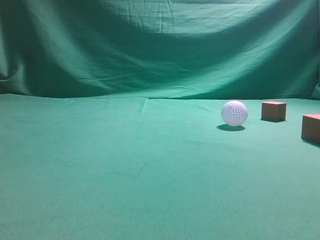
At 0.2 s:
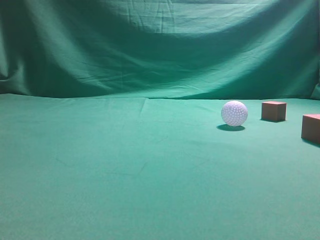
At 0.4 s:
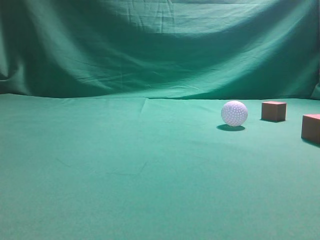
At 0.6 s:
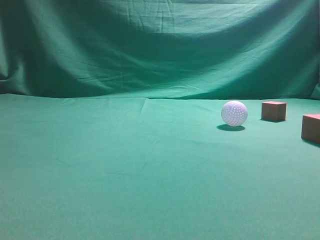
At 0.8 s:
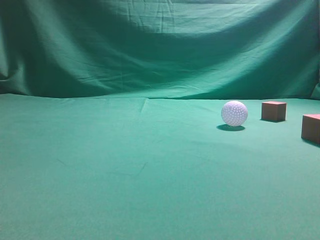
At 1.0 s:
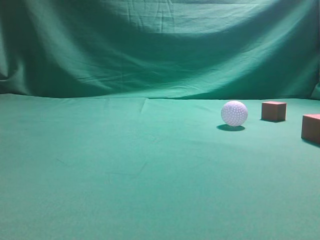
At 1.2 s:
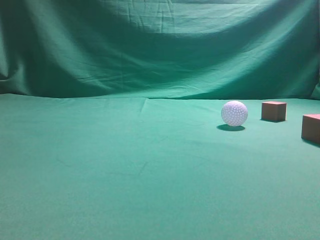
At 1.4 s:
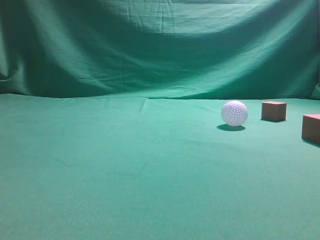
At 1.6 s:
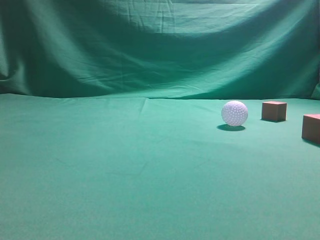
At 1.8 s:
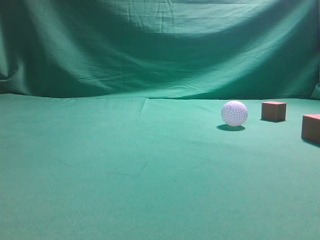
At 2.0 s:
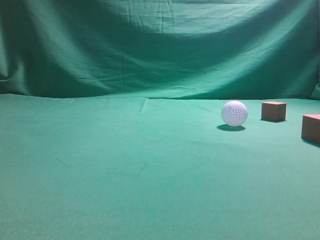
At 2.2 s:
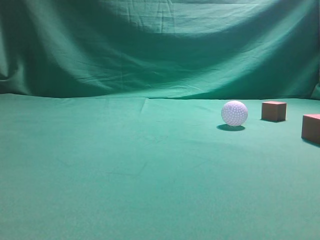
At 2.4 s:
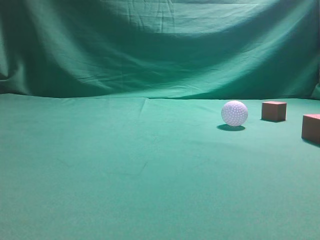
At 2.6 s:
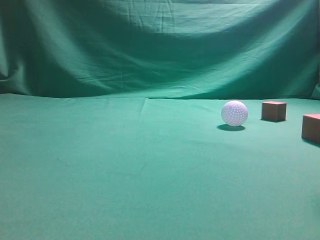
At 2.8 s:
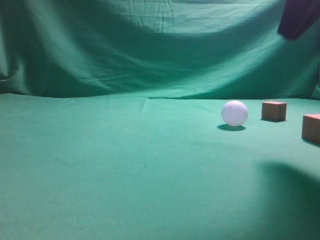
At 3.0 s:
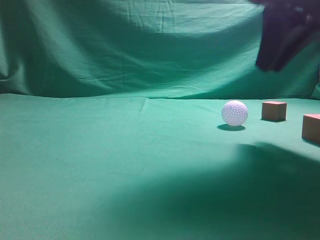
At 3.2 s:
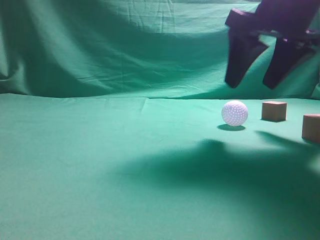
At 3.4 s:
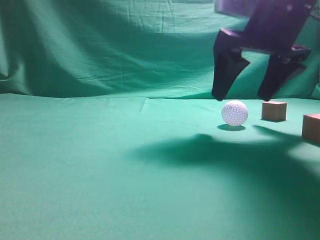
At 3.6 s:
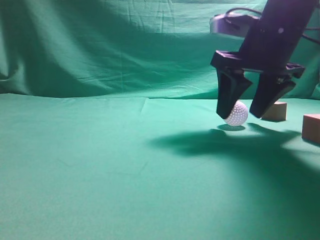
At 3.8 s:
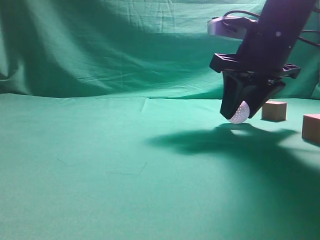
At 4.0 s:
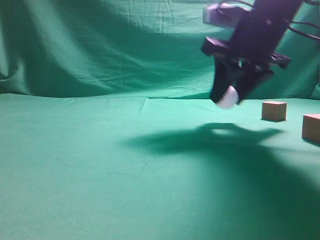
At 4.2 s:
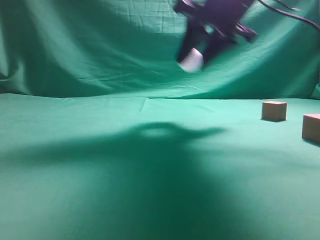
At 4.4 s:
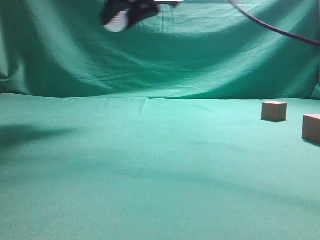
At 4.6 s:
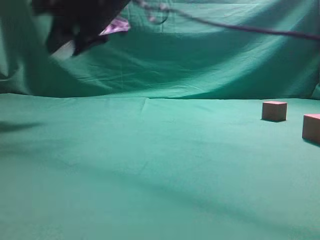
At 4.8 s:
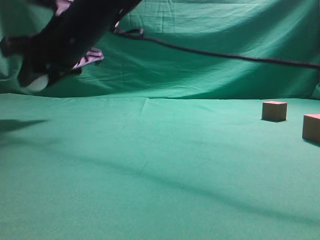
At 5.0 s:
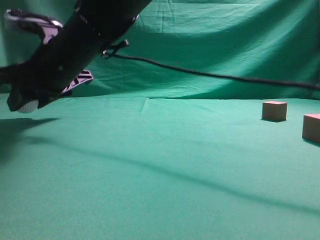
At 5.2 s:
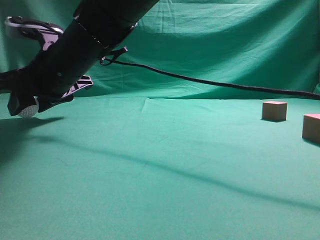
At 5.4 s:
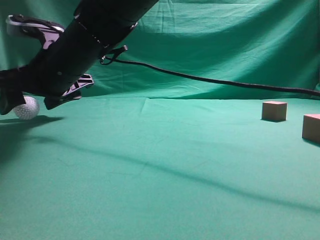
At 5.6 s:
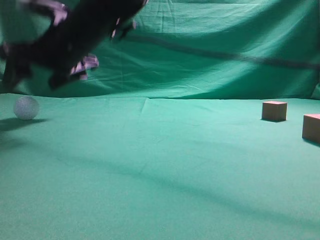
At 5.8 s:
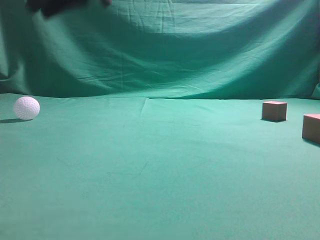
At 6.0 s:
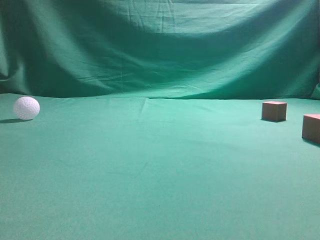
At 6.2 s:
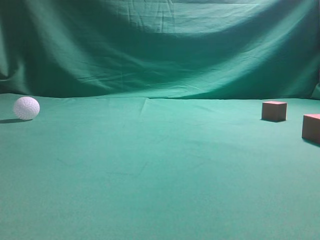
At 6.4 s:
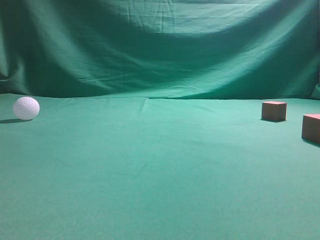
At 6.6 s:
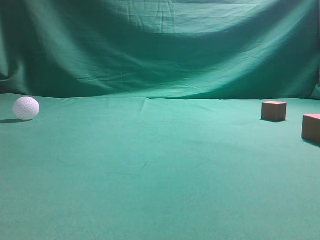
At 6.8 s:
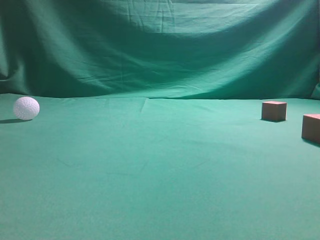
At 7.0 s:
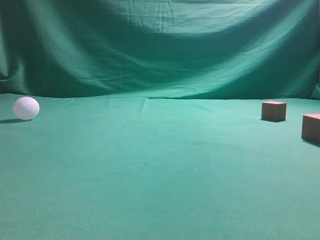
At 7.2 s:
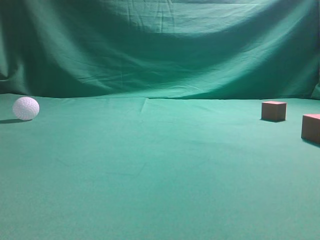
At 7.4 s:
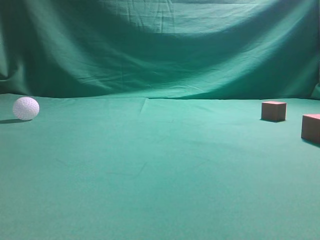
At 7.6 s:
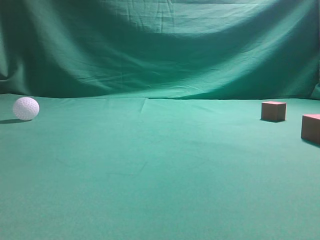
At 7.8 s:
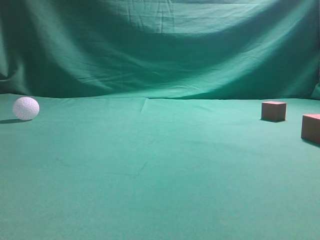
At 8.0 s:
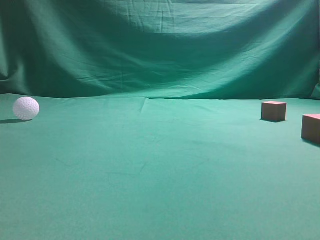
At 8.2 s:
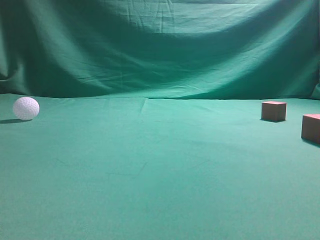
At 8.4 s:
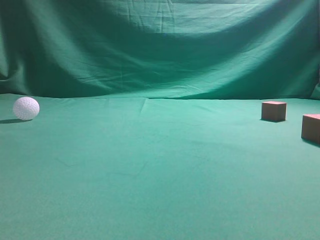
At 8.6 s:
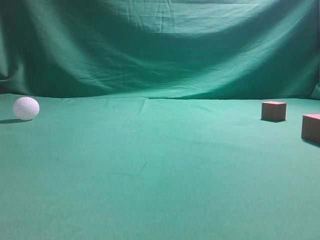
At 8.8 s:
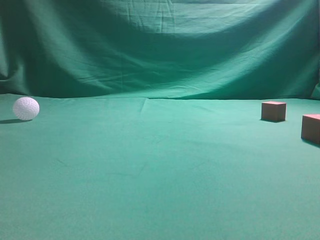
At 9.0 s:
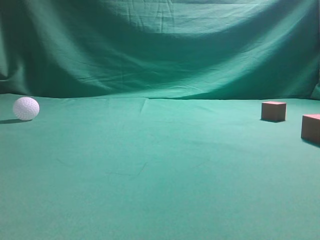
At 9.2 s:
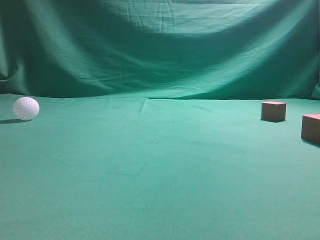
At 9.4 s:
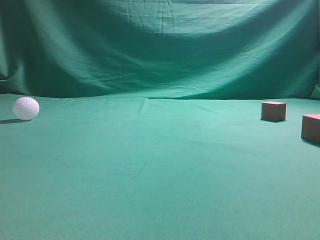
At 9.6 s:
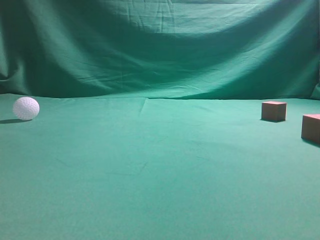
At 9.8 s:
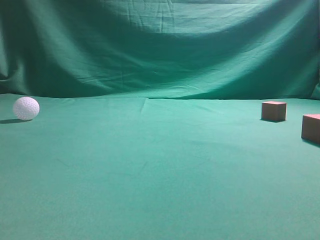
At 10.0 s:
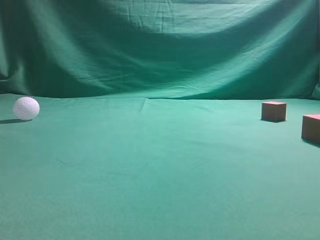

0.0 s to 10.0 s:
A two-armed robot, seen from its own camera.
Step, 0.0 to 4.0 s: Grasp the spherical object on the right side.
1.4 to 2.8 s: The right gripper shifts approximately 25 cm forward, to the left and upward.
2.8 to 4.2 s: The right gripper is displaced forward and to the left by about 15 cm, and opens up.
4.2 to 5.8 s: The right gripper is displaced to the left by about 20 cm, and opens and closes again.
8.6 to 10.0 s: Both grippers stay put.
